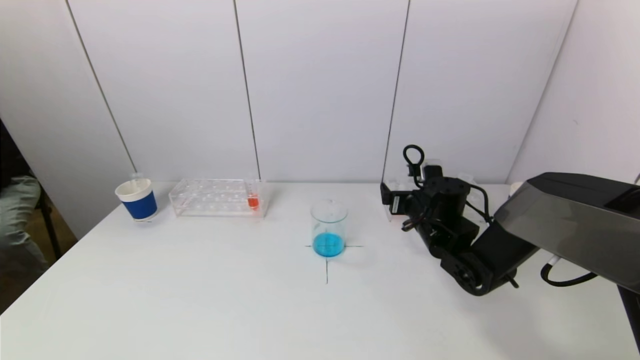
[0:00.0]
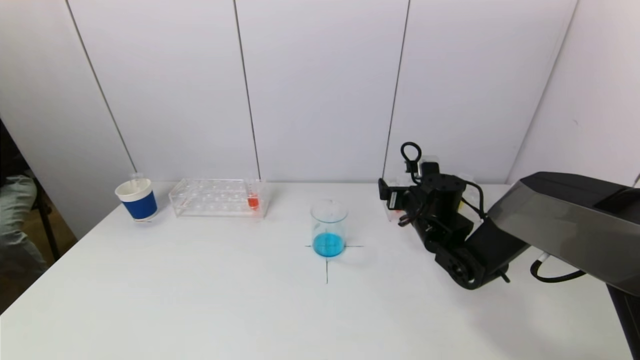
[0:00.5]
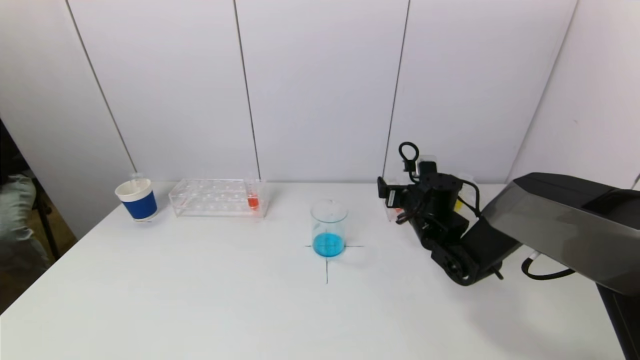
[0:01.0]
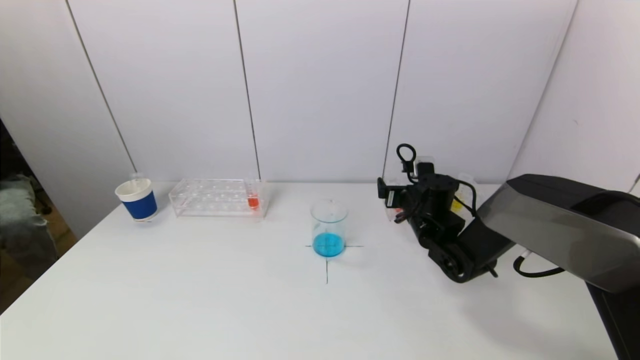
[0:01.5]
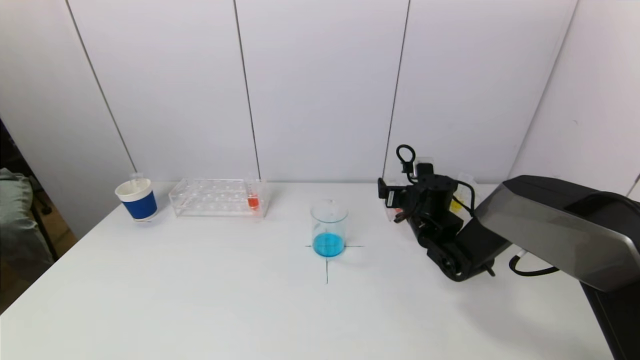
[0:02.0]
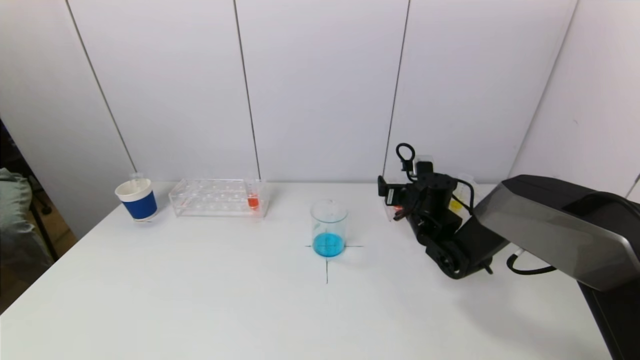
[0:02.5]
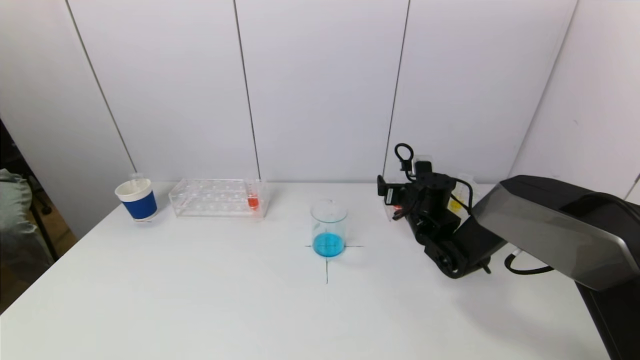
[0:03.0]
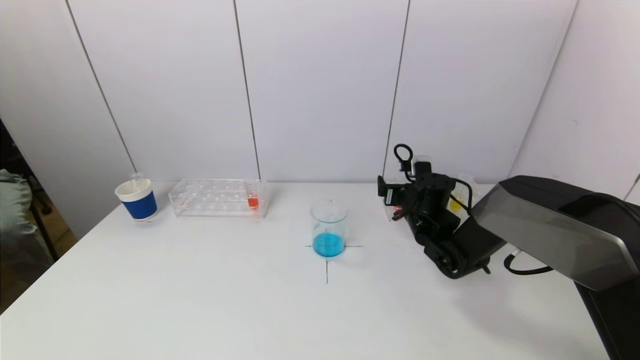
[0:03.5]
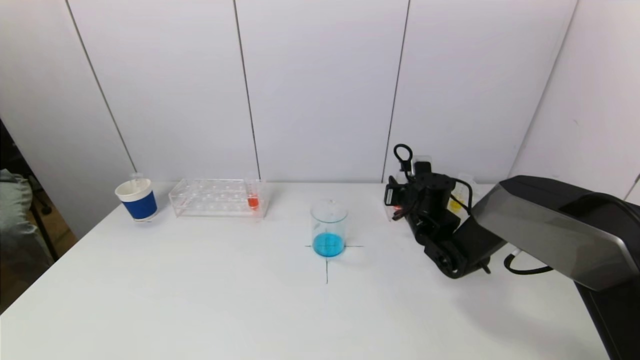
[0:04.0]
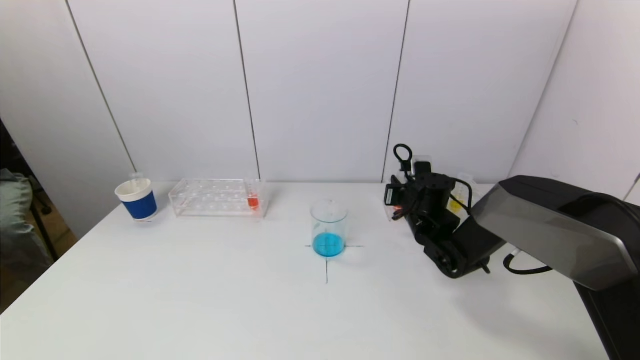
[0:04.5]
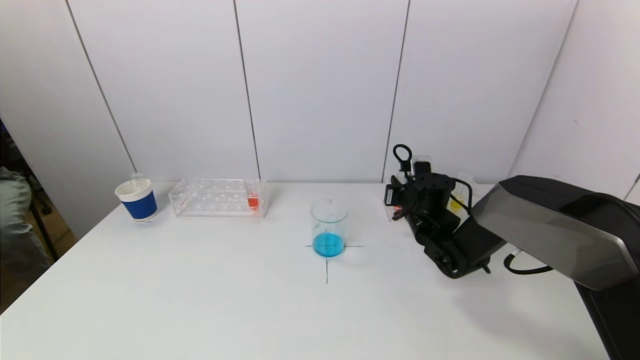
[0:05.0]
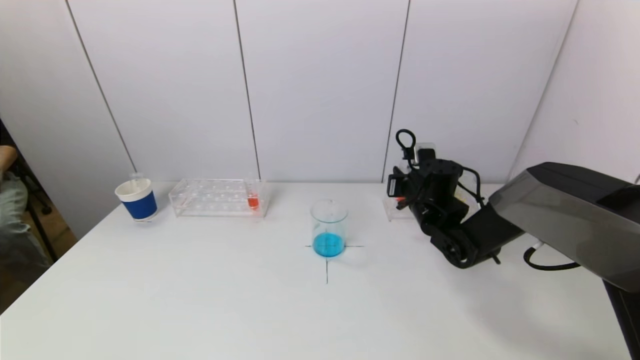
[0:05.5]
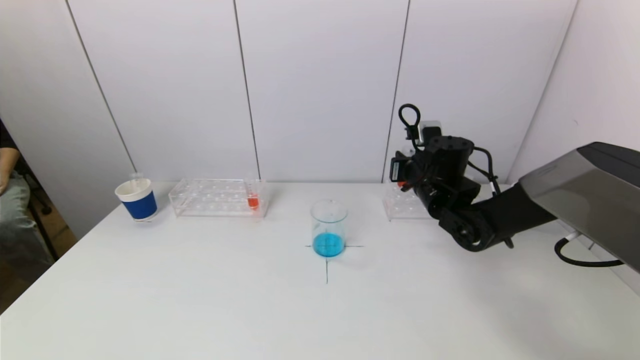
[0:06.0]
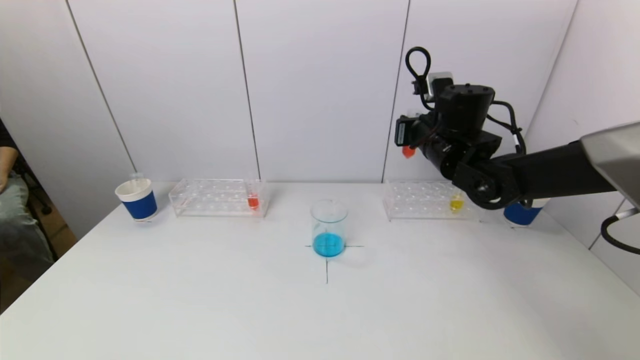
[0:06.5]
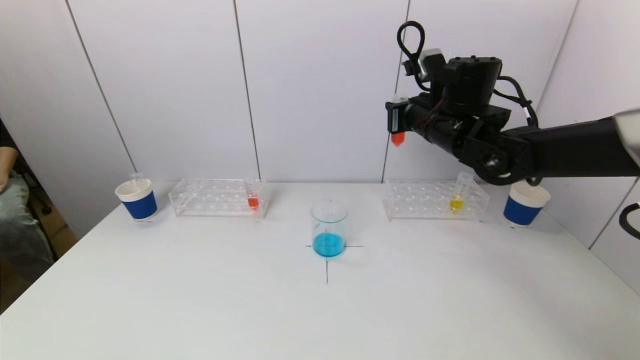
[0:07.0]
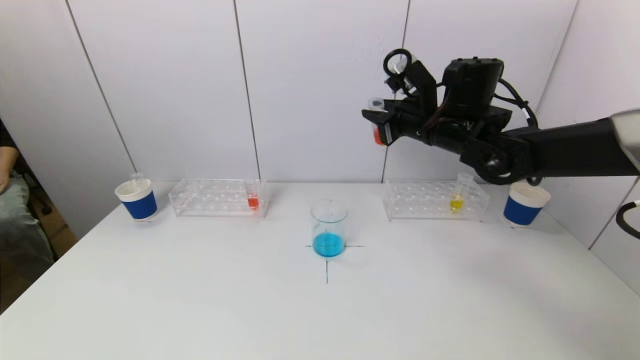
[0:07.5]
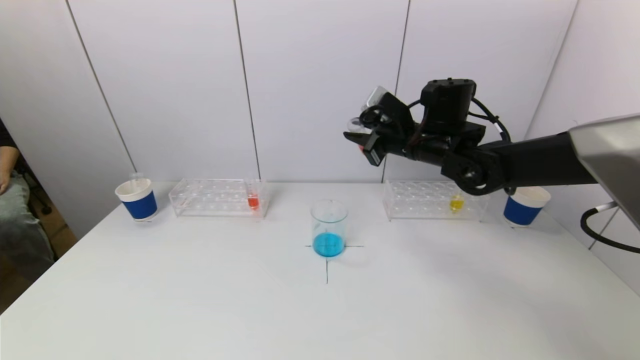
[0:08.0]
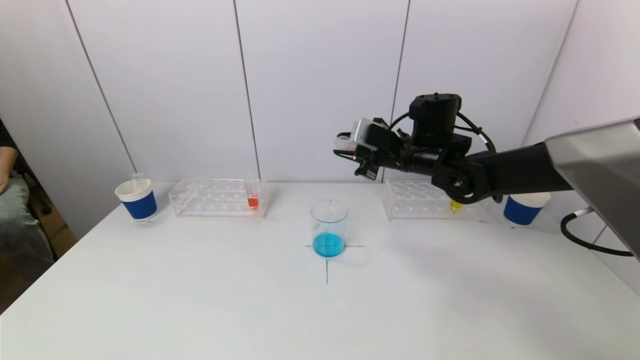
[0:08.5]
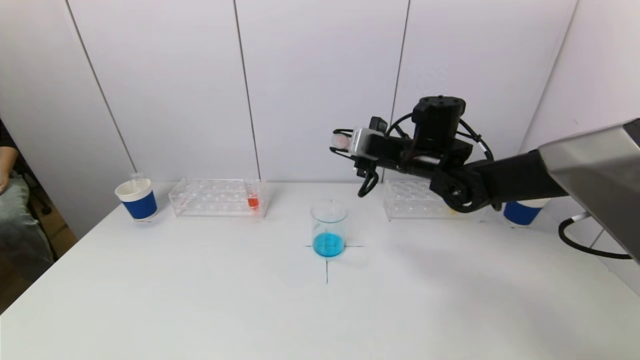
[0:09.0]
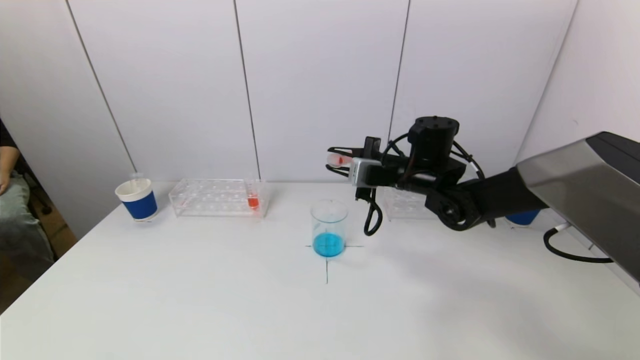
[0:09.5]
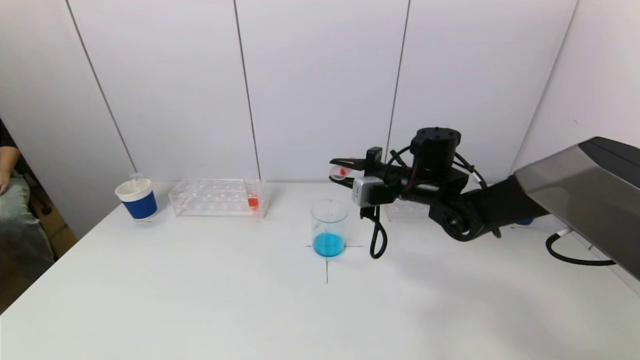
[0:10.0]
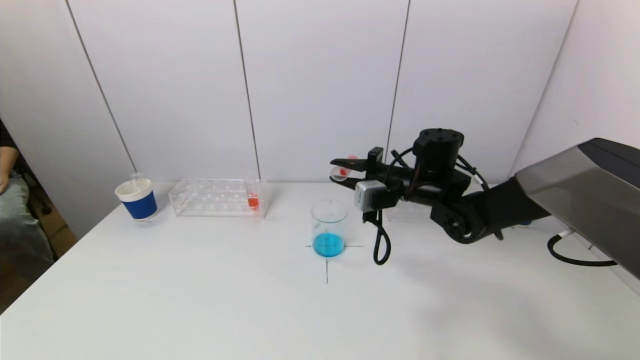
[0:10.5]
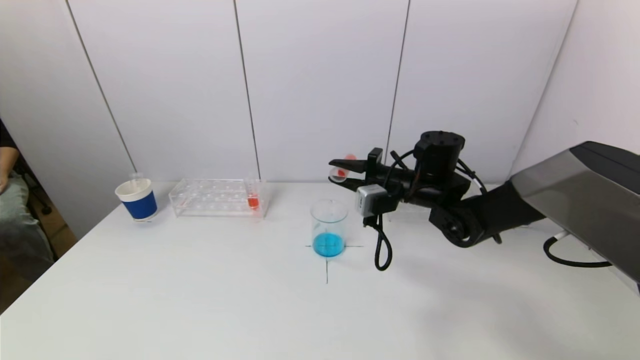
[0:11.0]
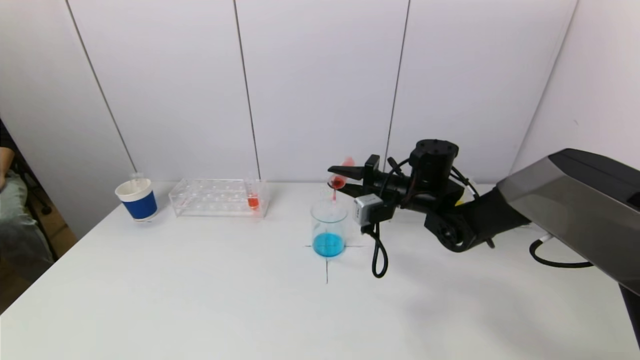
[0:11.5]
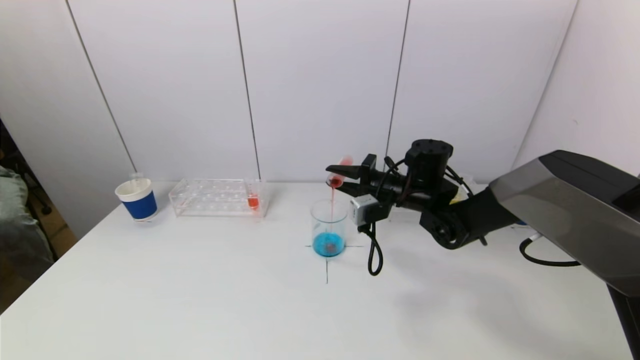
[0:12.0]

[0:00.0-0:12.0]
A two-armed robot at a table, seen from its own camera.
Task of the whole recording: pick up a test tube with pigment on left test tube rack and a test tube with pigment on right test tube rack by grippers and pour them into the beaker.
Step, 0:00.0 to 0:04.0: Grasp the red reagent with the right gripper.
0:00.0 to 0:02.0: The grippers move only a little.
0:02.0 to 0:04.0: The right gripper closes up.
0:04.0 to 0:06.0: The right gripper goes some 10 cm upward.
0:06.0 to 0:08.0: The right gripper shifts about 10 cm upward.
0:08.0 to 0:10.0: The right gripper shifts approximately 5 cm downward.
0:10.0 to 0:12.0: The grippers move only a little.

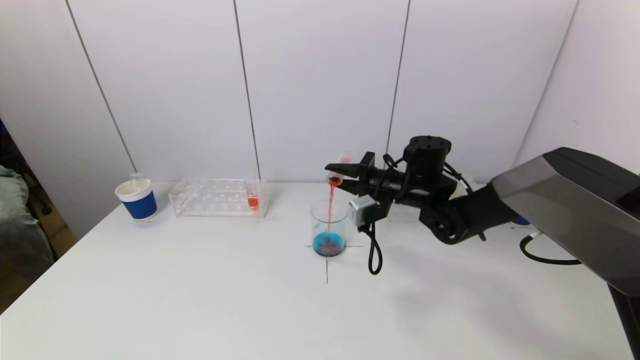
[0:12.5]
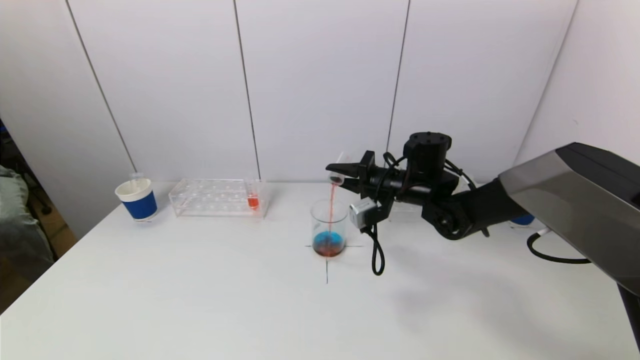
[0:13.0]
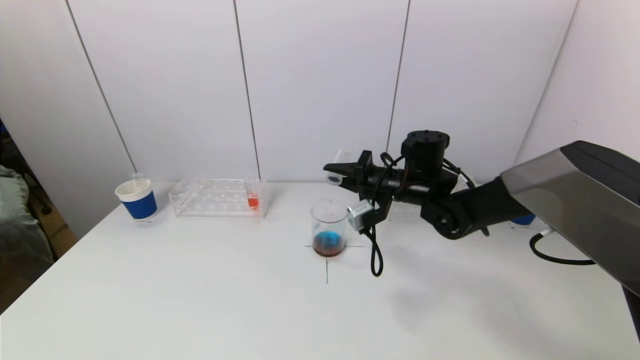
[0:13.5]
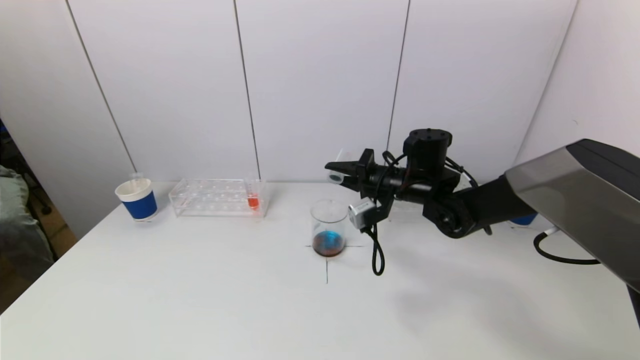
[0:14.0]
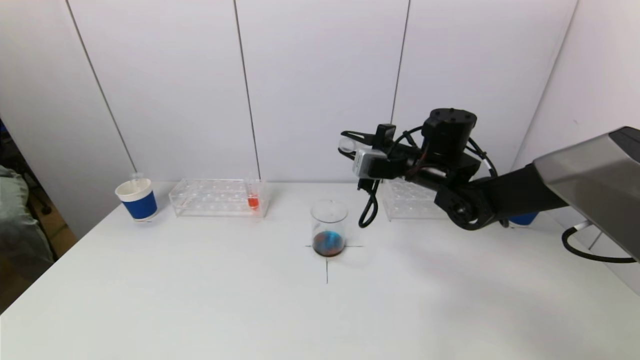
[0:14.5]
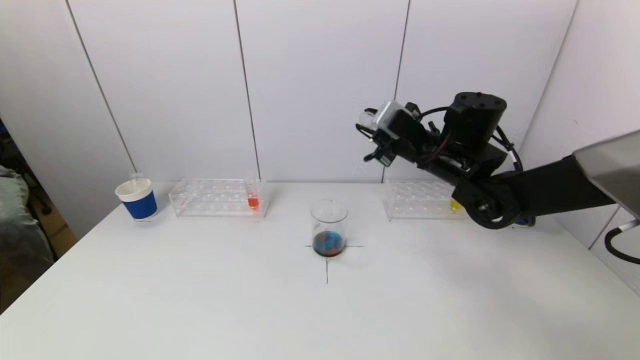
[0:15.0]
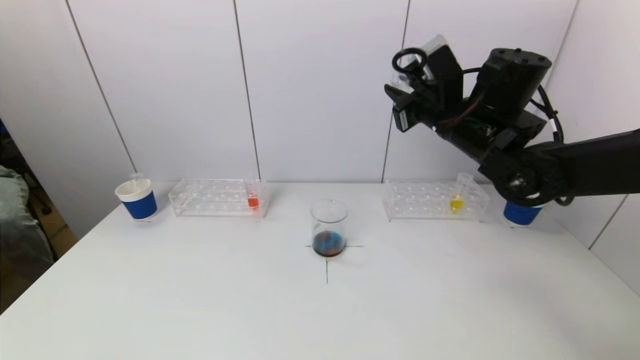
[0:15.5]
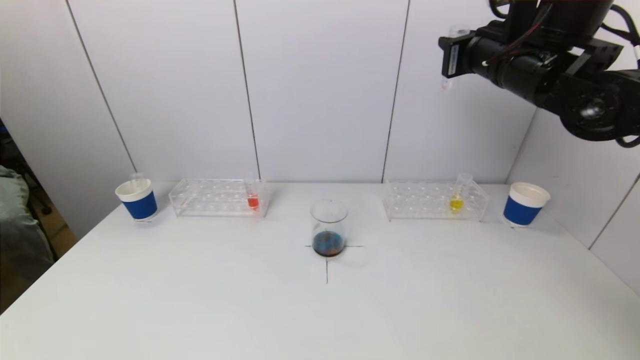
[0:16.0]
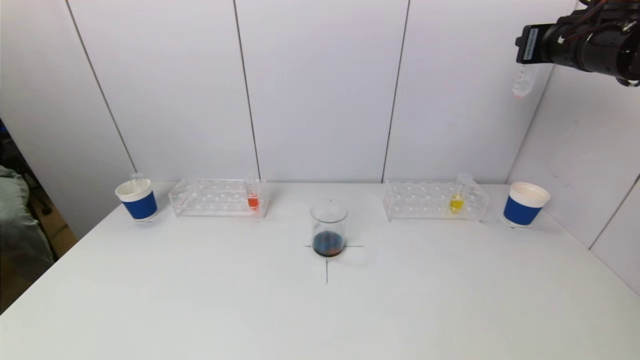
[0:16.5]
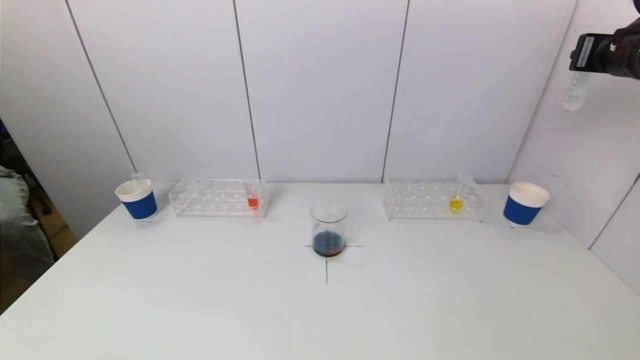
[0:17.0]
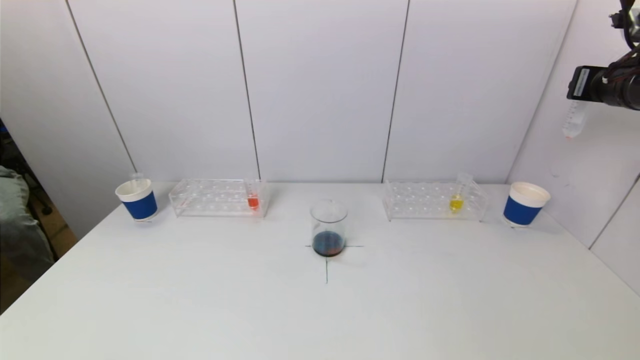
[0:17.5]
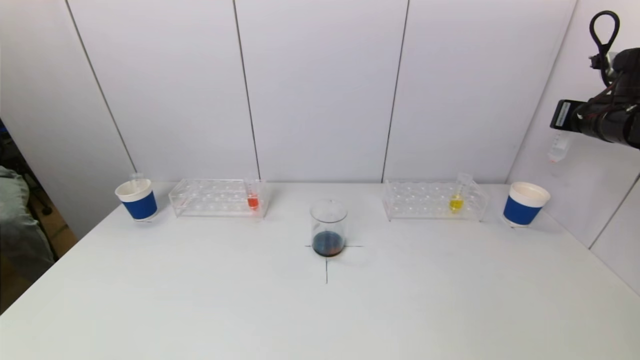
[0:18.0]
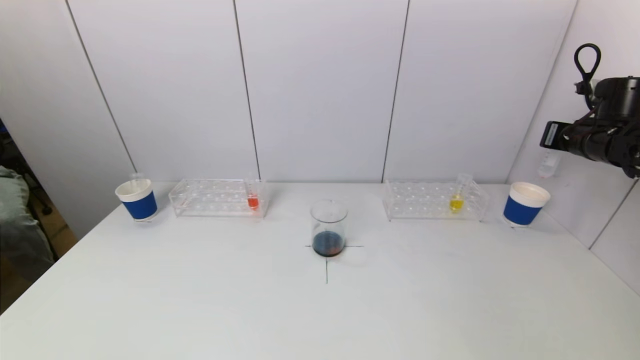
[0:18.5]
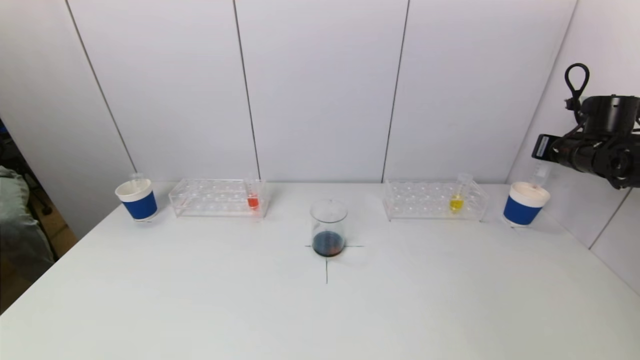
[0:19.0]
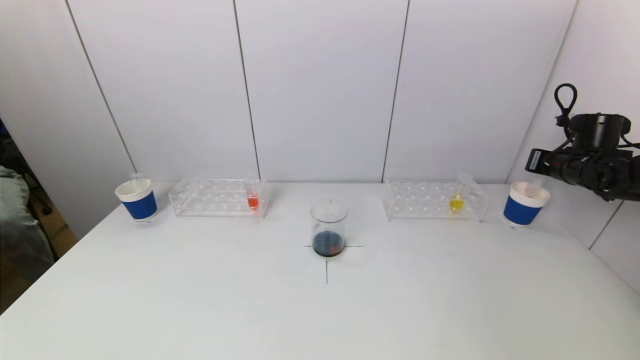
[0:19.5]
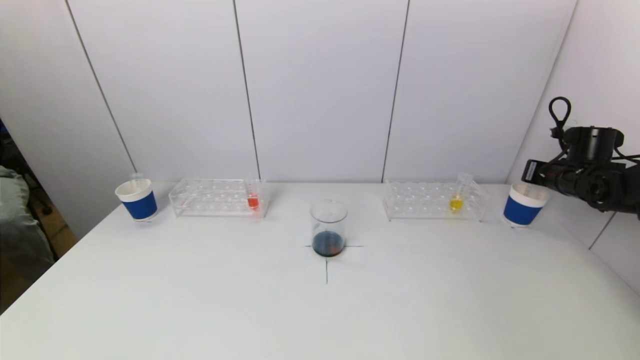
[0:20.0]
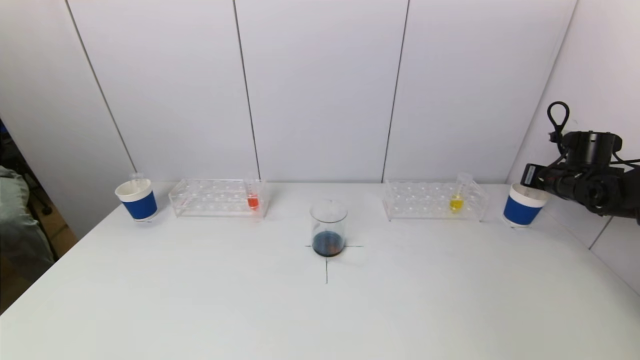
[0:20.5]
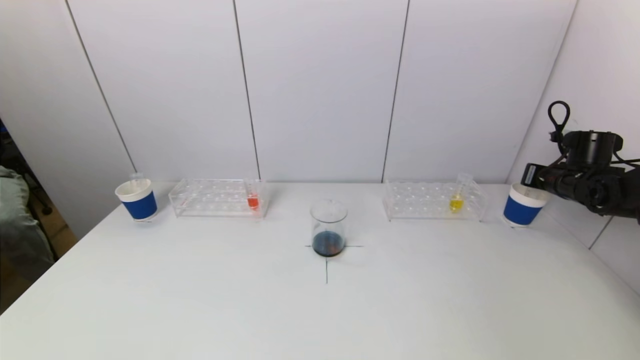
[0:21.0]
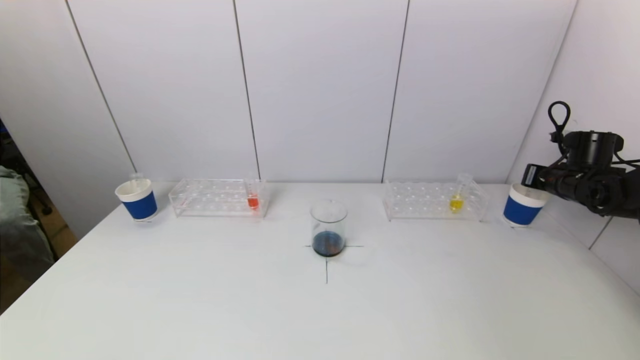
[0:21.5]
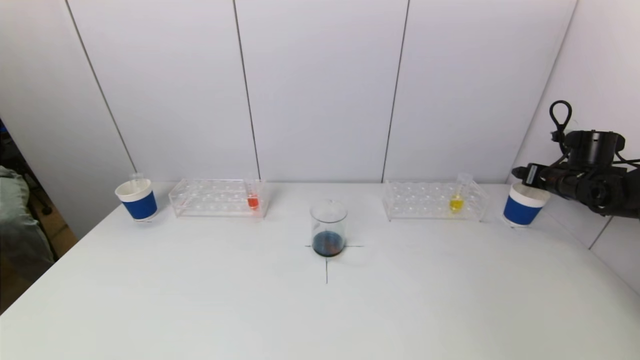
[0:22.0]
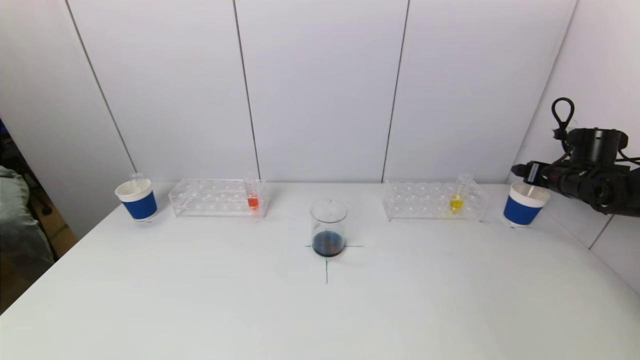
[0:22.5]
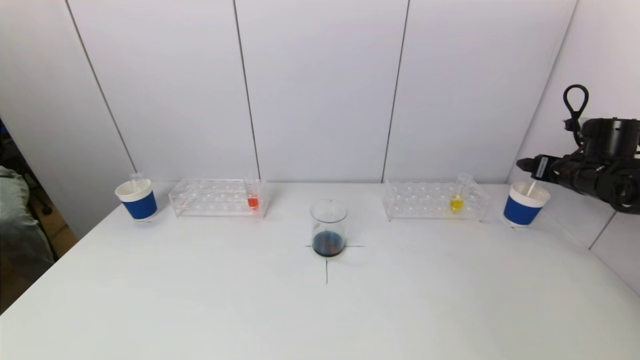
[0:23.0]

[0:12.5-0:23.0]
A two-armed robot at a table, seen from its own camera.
Task of the whole recording: pick up a test tube with pigment on left test tube rack and a test tube with pigment on right test tube rack by grippers and pour them into the beaker.
Step, 0:14.5 to 0:22.0: Place the test tube into the paper cup with the right gripper.
0:12.5 to 0:14.5: The right gripper moves upward, about 5 cm.
0:14.5 to 0:16.5: The right gripper shifts approximately 25 cm upward and to the right.
0:16.5 to 0:19.0: The right gripper is displaced downward and to the right by some 20 cm.
0:19.0 to 0:21.0: The right gripper travels downward by some 5 cm.
0:21.0 to 0:23.0: The right gripper changes place by about 5 cm, and opens its fingers.
